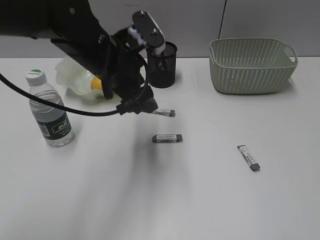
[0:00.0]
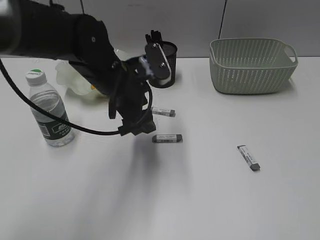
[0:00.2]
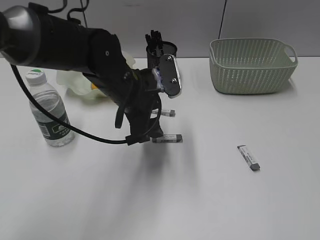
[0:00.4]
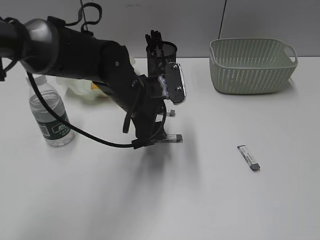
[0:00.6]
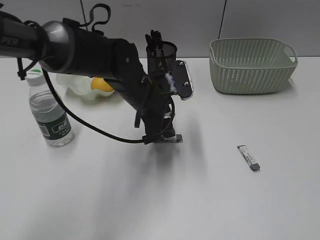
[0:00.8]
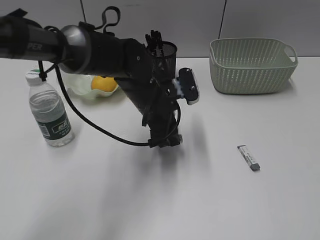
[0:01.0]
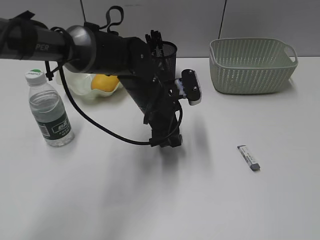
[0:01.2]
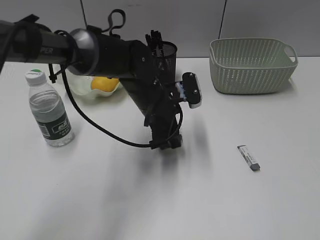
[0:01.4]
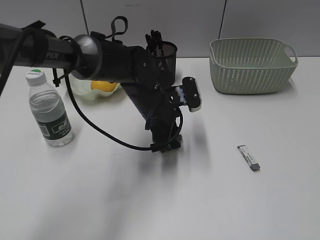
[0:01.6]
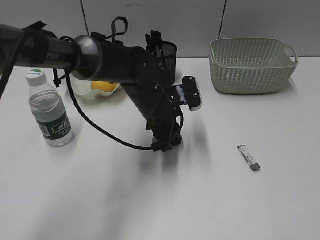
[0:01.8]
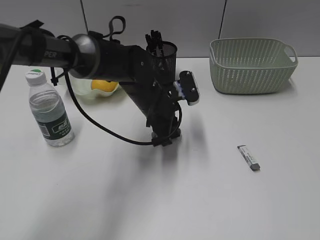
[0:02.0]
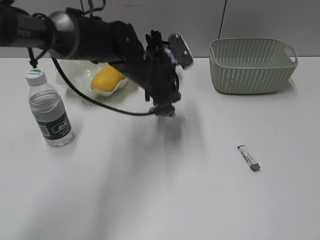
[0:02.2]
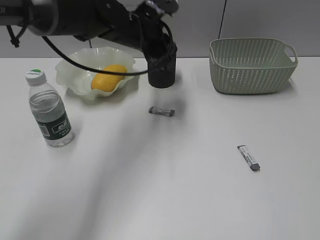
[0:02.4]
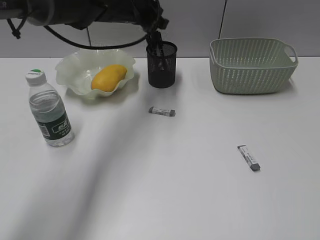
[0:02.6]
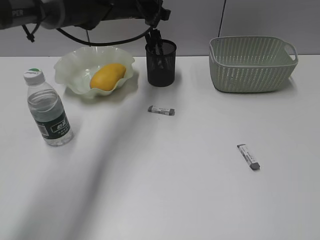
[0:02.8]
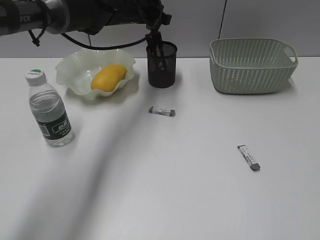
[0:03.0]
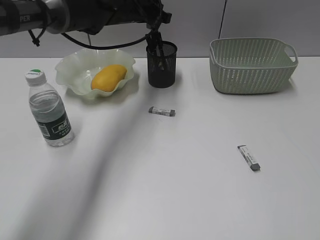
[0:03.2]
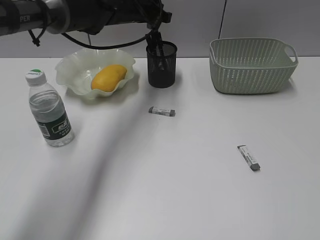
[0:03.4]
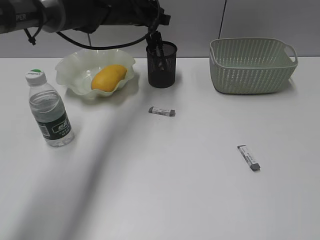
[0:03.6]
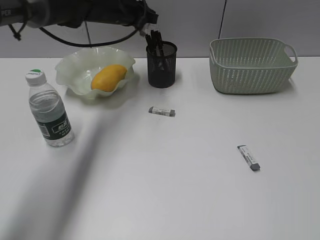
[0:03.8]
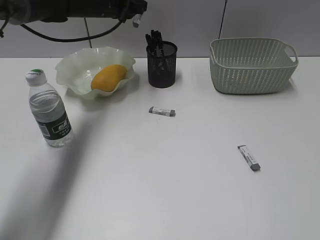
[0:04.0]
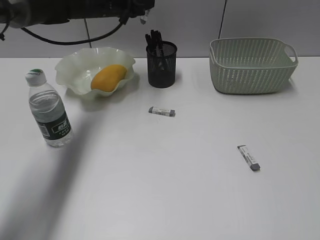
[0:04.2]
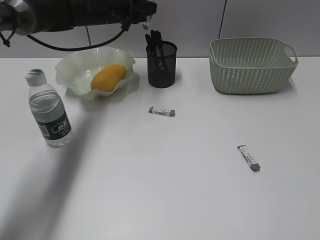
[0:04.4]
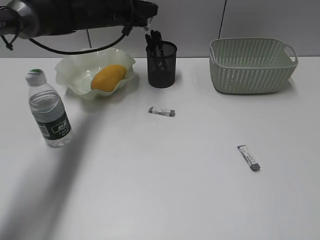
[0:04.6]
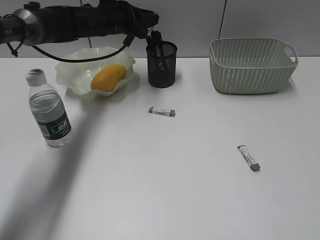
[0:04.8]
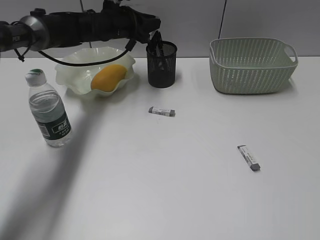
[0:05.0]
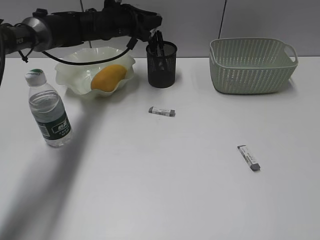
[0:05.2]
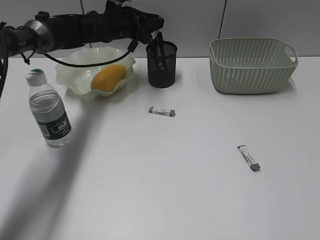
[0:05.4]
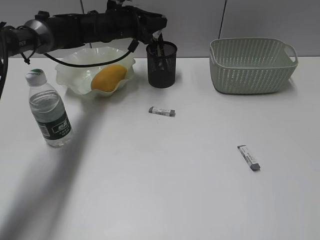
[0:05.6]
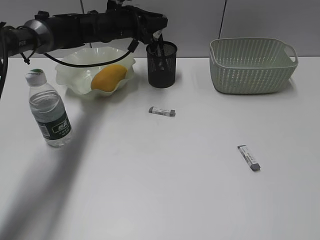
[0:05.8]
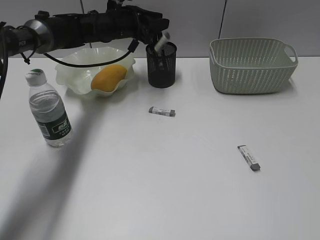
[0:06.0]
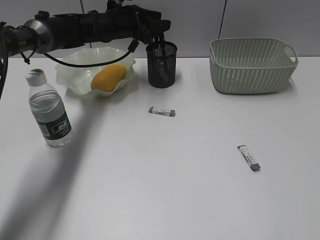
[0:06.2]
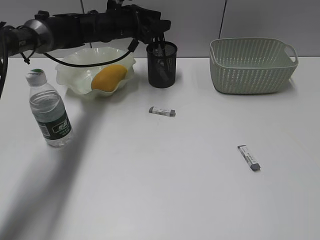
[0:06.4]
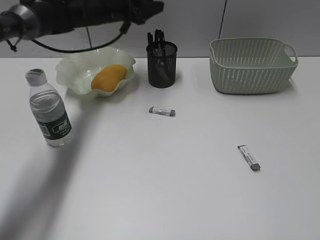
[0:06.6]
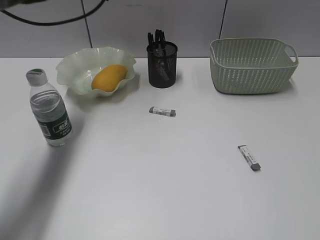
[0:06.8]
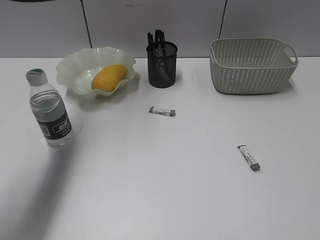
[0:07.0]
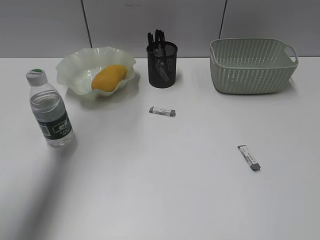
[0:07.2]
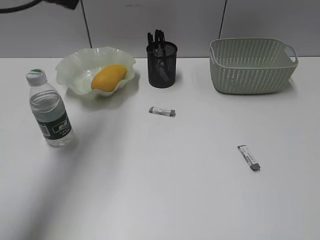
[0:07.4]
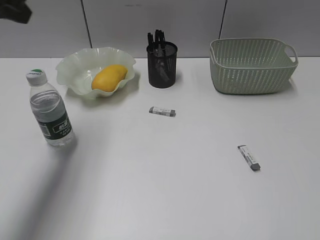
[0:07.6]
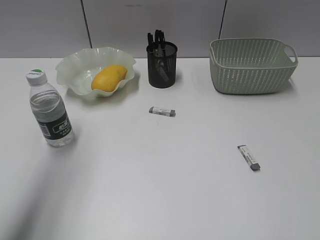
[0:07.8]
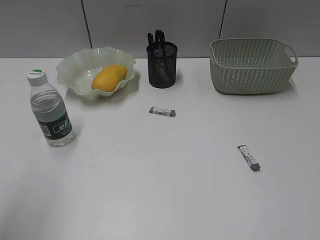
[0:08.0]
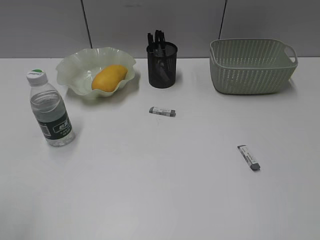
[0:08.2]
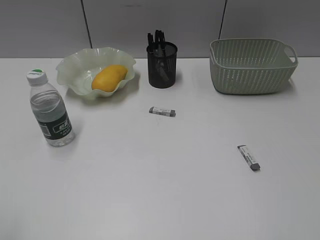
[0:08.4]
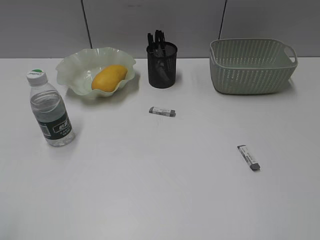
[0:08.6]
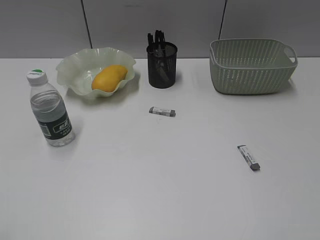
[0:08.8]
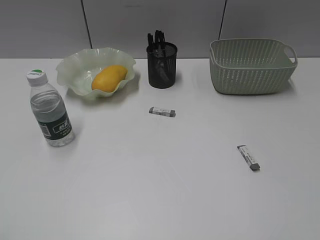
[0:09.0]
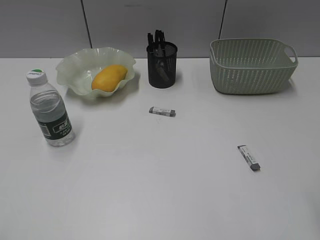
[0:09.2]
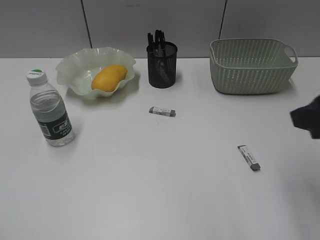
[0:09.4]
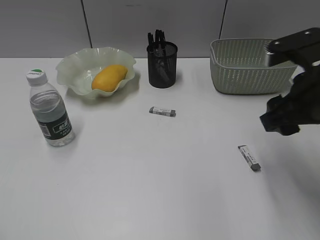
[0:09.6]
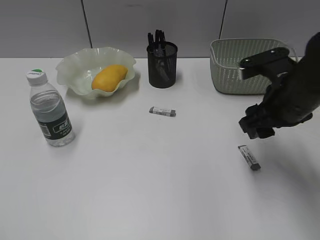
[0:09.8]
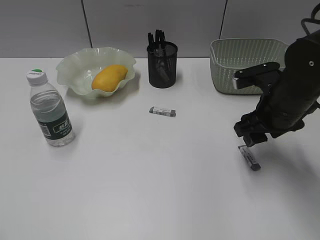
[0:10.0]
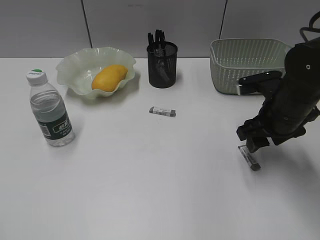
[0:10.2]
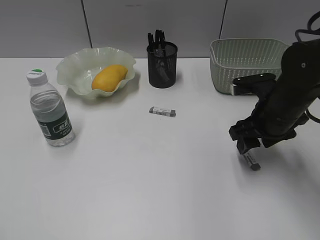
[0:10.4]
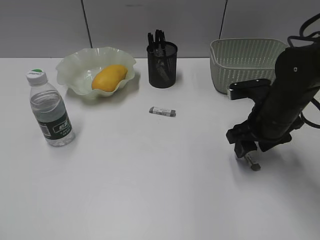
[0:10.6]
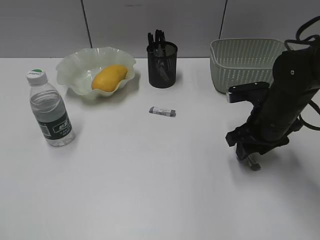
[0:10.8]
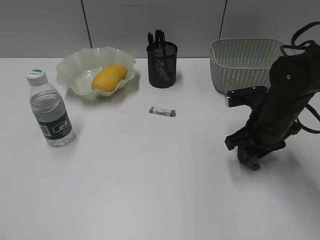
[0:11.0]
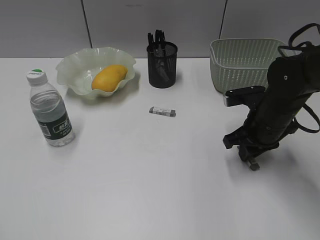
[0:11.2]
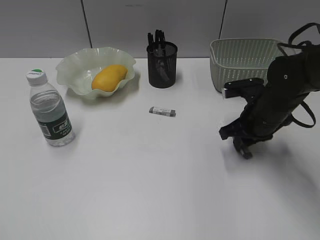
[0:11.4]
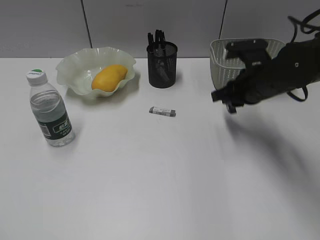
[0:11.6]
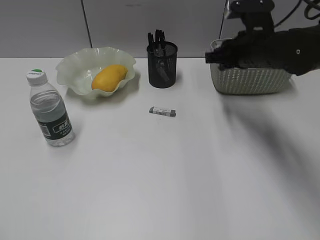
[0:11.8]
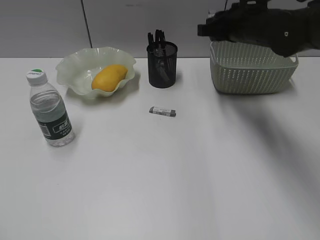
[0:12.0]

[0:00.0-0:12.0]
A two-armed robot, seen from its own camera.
Step, 0:00.0 to 0:02.2: Grasp the eraser with left gripper.
Step, 0:02.4 to 0:06.4: Place the eraser in pen holder with left gripper.
Step, 0:06.6 to 0:11.4: Grasp the eraser with right gripper.
0:00.0 to 0:01.6: The left gripper moves downward and to the right, approximately 15 cm, and closes.
0:01.6 to 0:03.0: The left gripper is displaced forward and upward by approximately 20 cm.
0:03.0 to 0:04.4: The left gripper goes about 5 cm to the left.
0:04.4 to 0:06.0: The grippers move only a little.
0:06.0 to 0:07.6: The left gripper heads backward, upward and to the left, covering some 30 cm.
0:07.6 to 0:09.0: The left gripper heads backward, covering roughly 30 cm.
0:09.0 to 0:10.4: The right gripper travels forward and downward by approximately 30 cm, and opens up.
0:10.4 to 0:12.0: The right gripper heads forward and upward, covering approximately 15 cm, and closes.

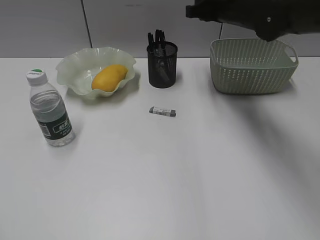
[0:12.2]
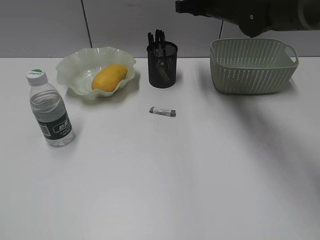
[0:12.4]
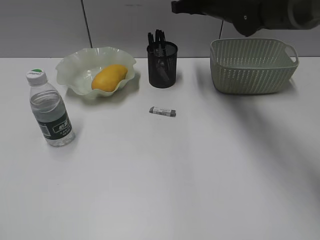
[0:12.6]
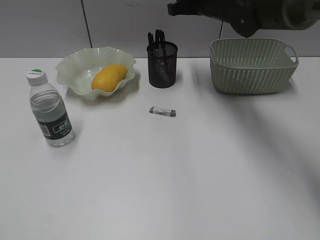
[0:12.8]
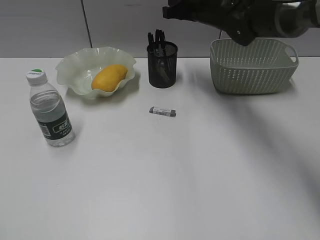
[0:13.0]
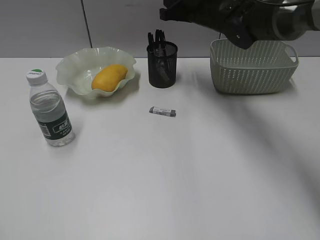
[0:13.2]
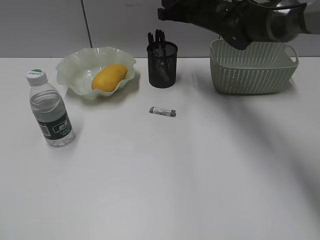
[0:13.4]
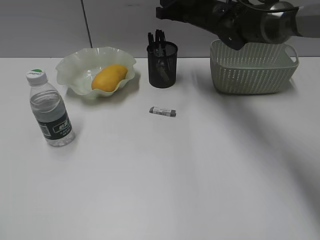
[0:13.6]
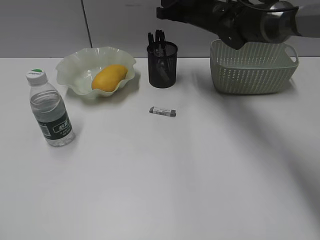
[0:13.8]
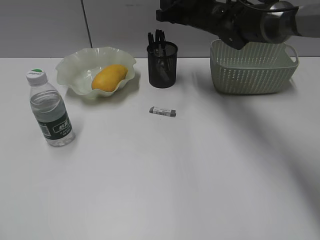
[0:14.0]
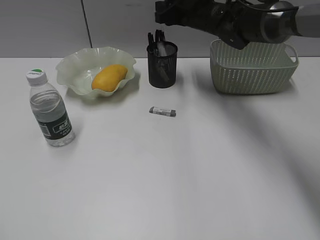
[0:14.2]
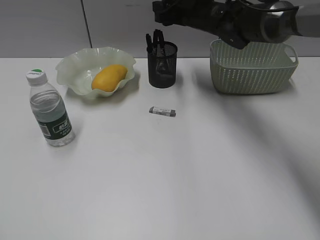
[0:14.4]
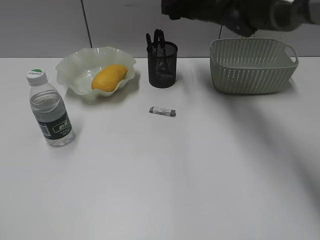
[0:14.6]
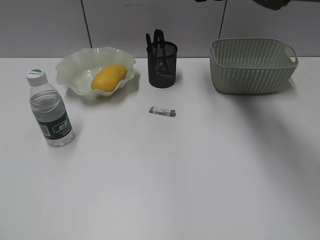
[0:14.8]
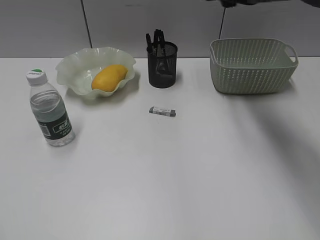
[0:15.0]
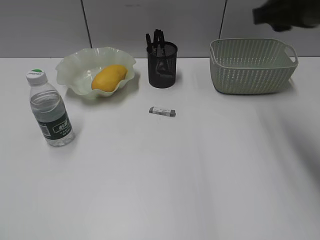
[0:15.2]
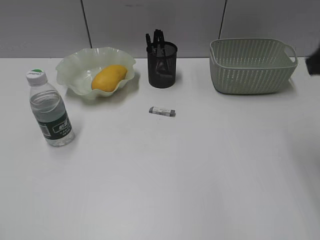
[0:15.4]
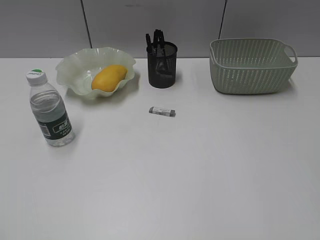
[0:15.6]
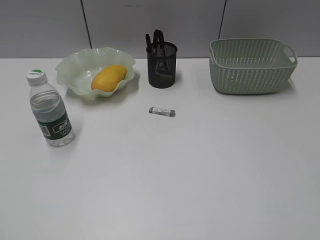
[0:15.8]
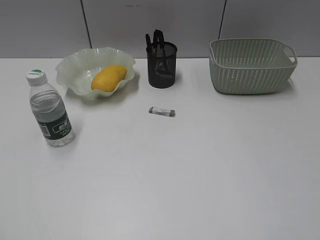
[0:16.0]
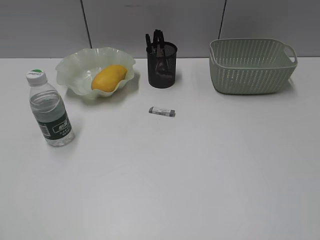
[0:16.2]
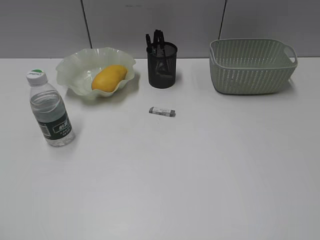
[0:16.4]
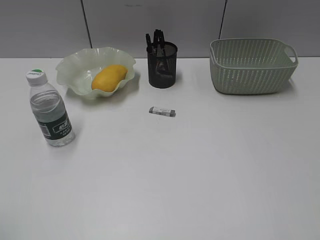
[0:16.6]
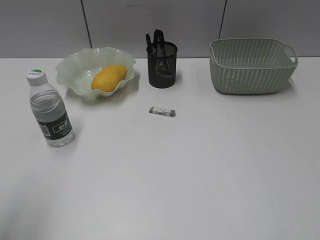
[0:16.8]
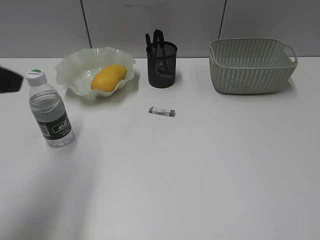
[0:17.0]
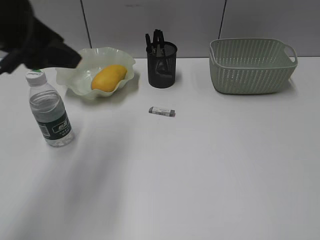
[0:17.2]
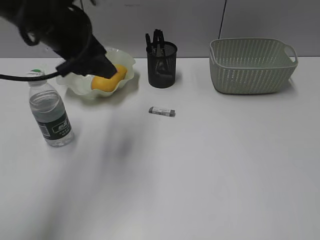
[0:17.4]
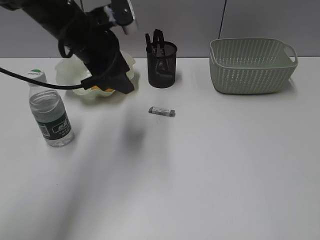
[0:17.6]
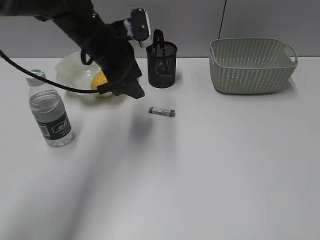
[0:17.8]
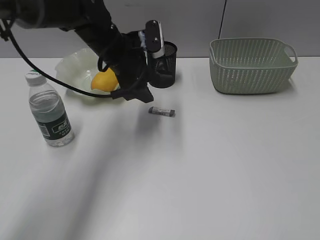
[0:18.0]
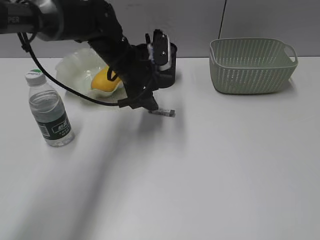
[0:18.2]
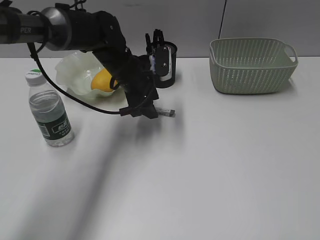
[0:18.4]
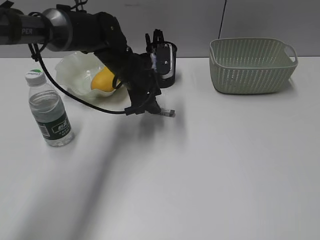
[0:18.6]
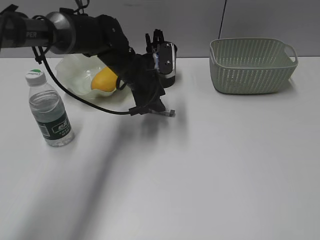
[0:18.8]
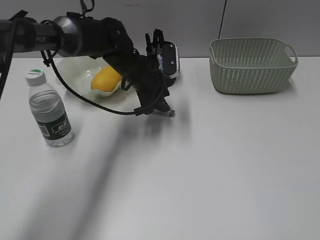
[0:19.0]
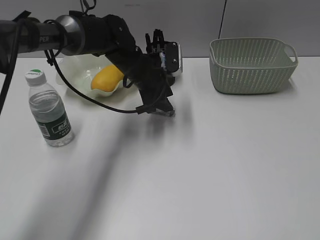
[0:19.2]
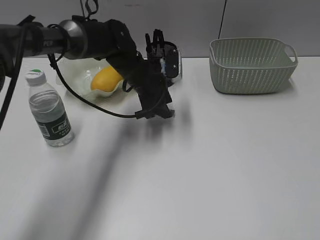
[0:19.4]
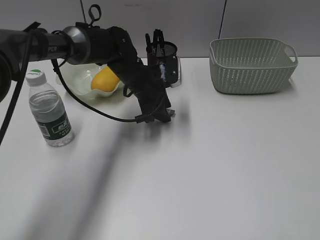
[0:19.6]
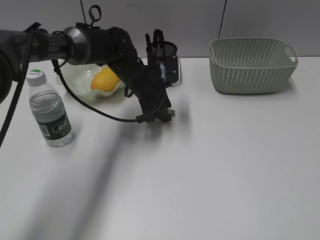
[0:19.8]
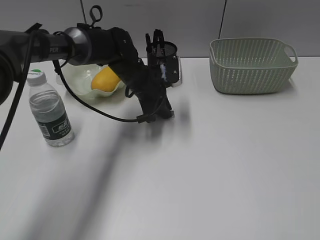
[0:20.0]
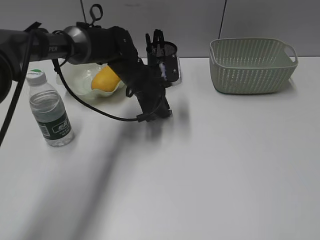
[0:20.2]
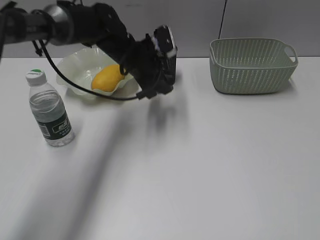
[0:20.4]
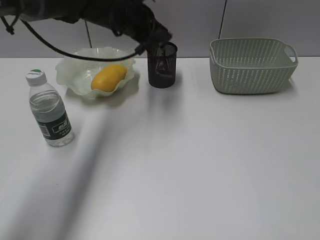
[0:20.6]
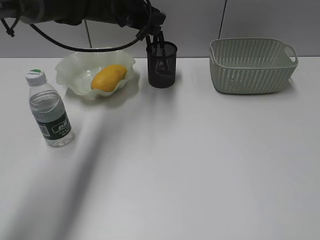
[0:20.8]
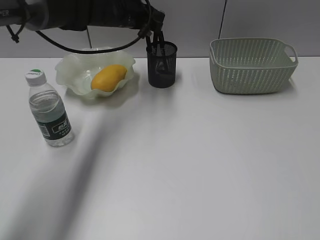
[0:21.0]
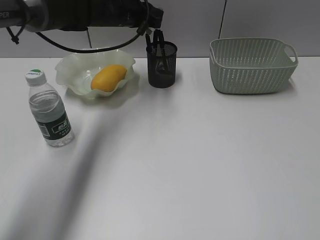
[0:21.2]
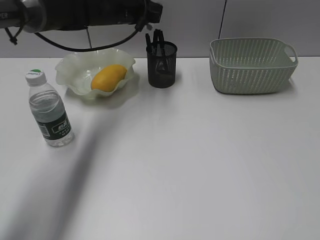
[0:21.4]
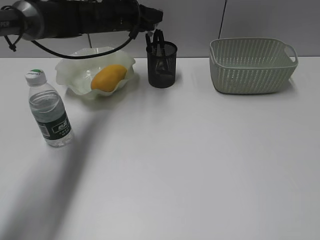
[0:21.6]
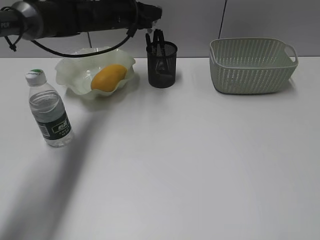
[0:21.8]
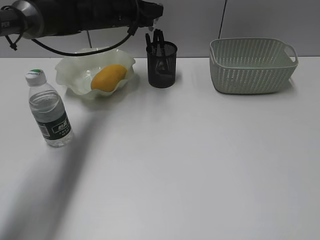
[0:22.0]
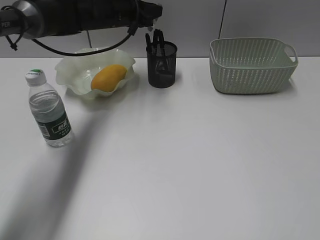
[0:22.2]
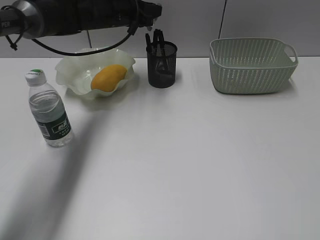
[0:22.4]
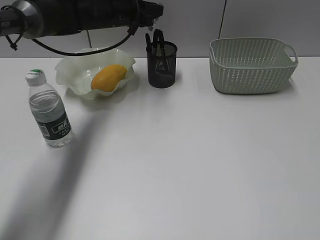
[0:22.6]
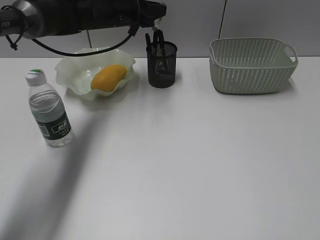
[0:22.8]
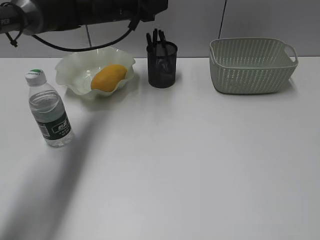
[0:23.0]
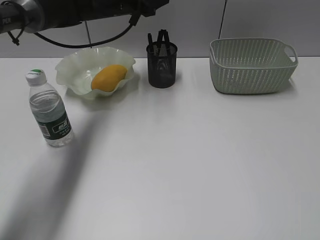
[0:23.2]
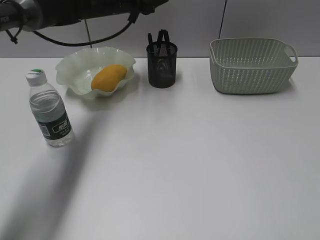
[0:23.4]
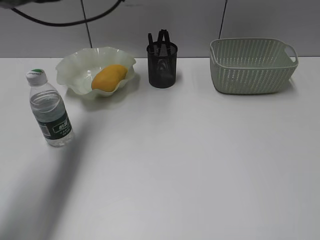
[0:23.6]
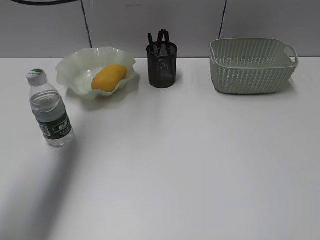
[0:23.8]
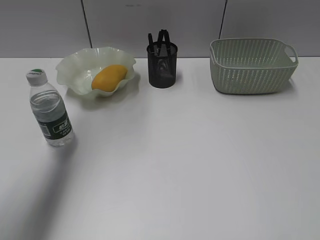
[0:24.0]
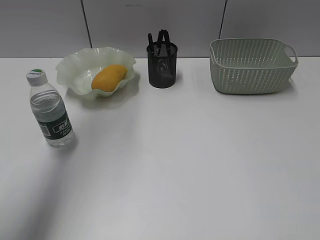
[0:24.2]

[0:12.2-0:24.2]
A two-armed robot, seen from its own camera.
Step, 0:14.6 to 0:20.2: Grasp the eraser with left gripper.
Step, 0:20.4 to 0:23.4: Place the eraser in pen holder with left gripper.
0:12.2 to 0:13.8: The right gripper travels forward and to the left by roughly 10 cm.
0:13.8 to 0:15.2: The right gripper shifts approximately 25 cm backward, to the right and upward, and opens its fingers.
0:15.2 to 0:16.6: The right gripper heads backward, covering roughly 30 cm.
0:16.6 to 0:18.2: The left gripper goes roughly 50 cm forward and to the right, and opens up.
0:18.2 to 0:19.8: The left gripper moves downward, approximately 5 cm.
0:19.8 to 0:21.2: The left gripper travels upward and forward by about 15 cm, and closes up.
0:21.2 to 0:22.6: The grippers make only small movements.
0:22.6 to 0:24.2: The left gripper shifts some 25 cm upward, backward and to the left.
